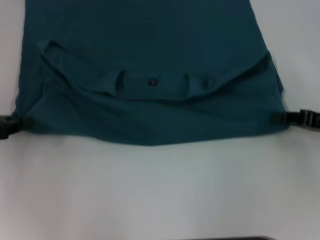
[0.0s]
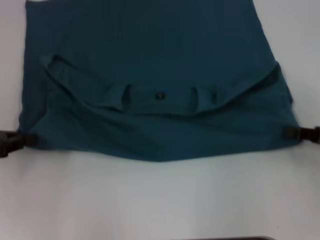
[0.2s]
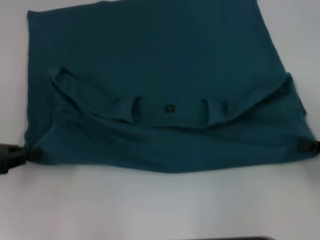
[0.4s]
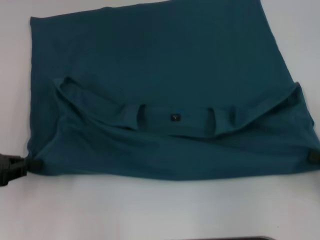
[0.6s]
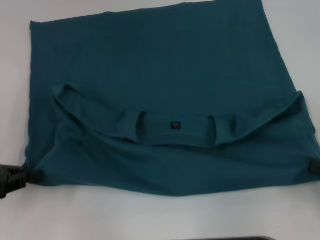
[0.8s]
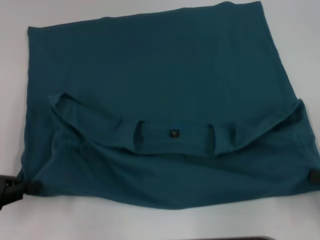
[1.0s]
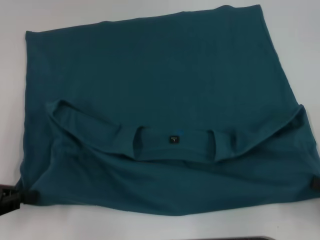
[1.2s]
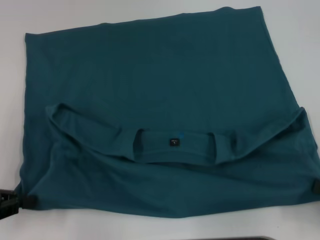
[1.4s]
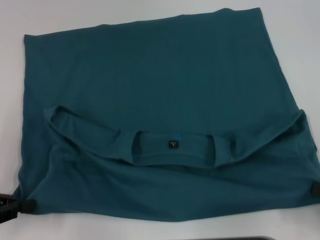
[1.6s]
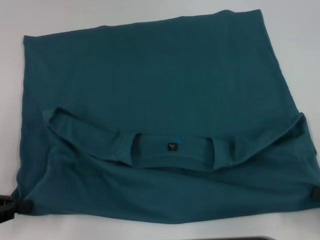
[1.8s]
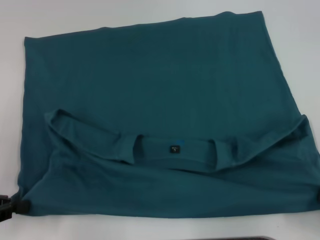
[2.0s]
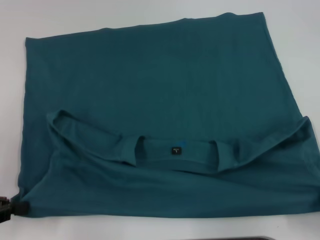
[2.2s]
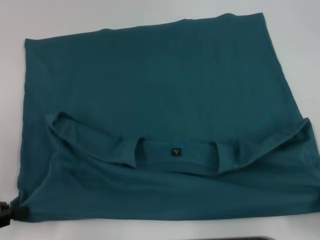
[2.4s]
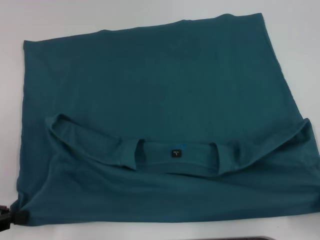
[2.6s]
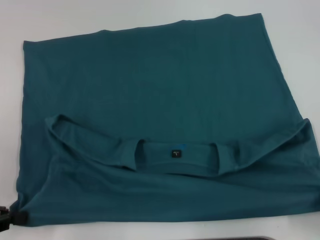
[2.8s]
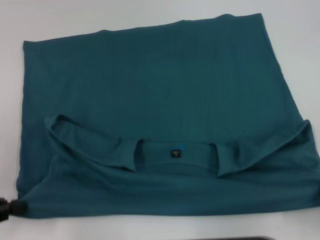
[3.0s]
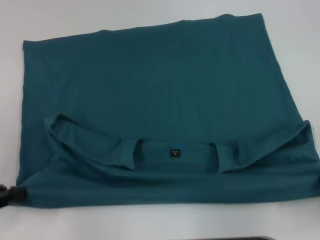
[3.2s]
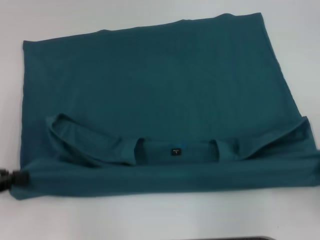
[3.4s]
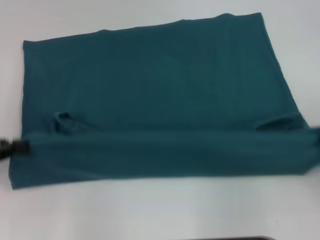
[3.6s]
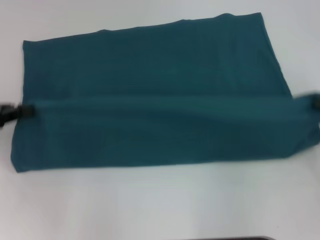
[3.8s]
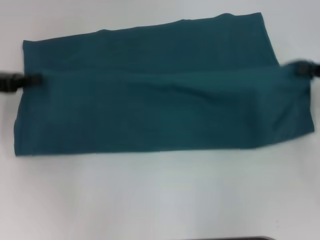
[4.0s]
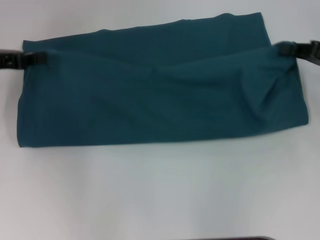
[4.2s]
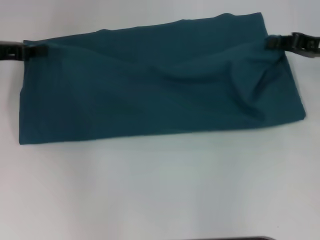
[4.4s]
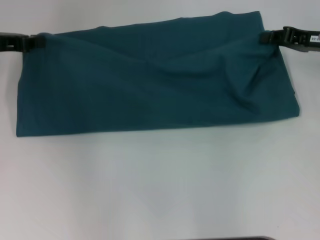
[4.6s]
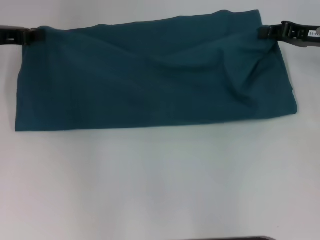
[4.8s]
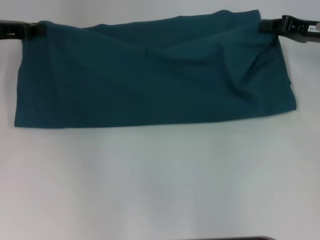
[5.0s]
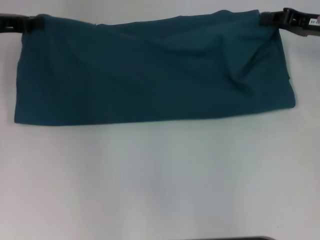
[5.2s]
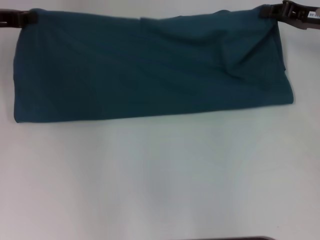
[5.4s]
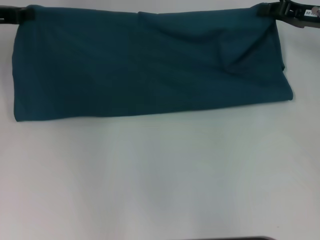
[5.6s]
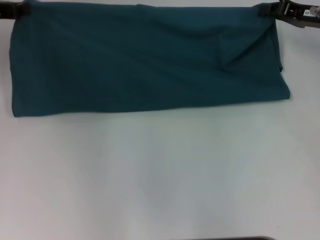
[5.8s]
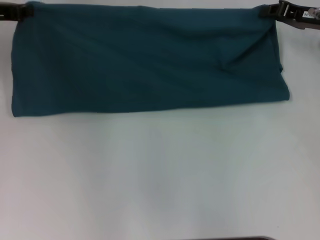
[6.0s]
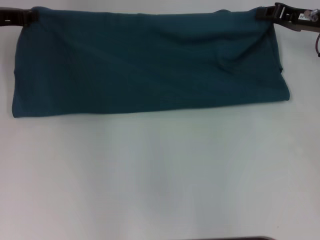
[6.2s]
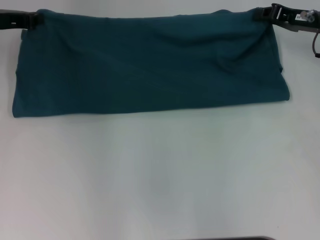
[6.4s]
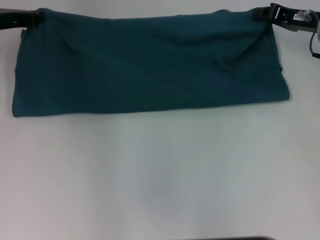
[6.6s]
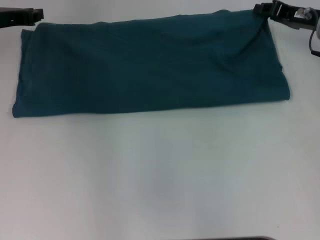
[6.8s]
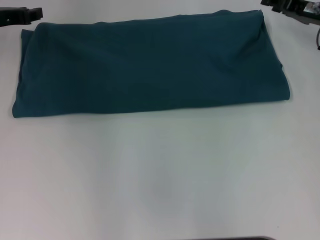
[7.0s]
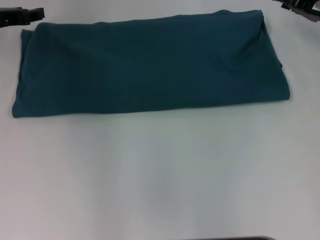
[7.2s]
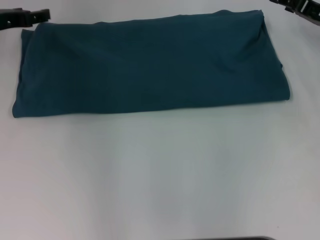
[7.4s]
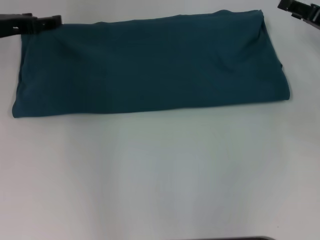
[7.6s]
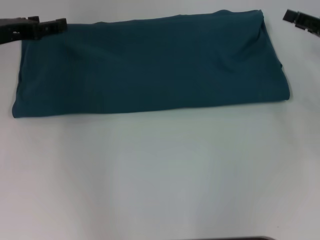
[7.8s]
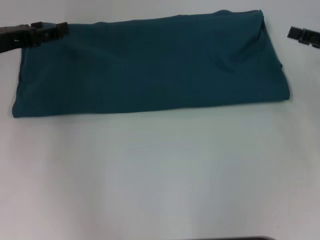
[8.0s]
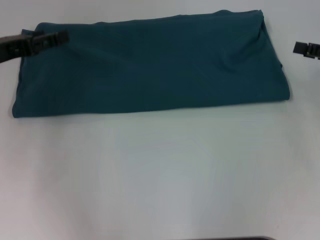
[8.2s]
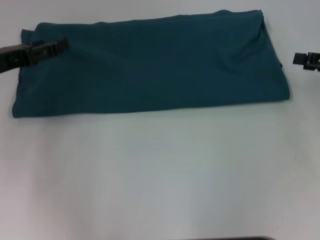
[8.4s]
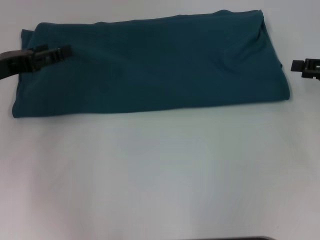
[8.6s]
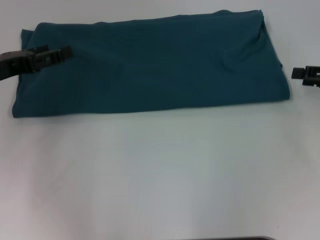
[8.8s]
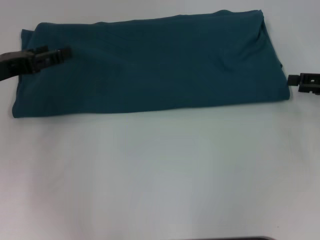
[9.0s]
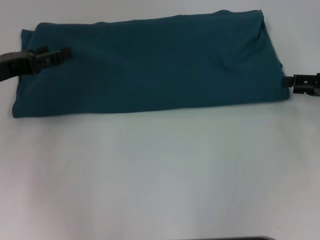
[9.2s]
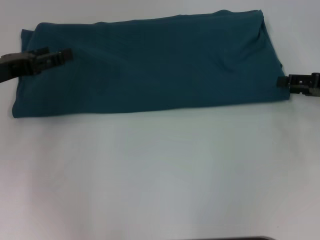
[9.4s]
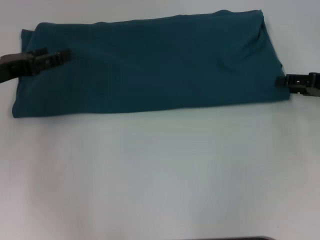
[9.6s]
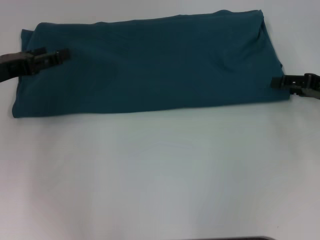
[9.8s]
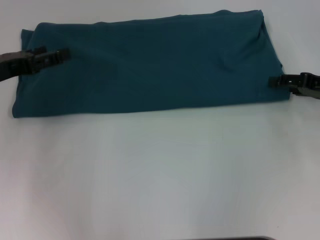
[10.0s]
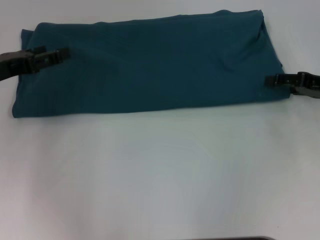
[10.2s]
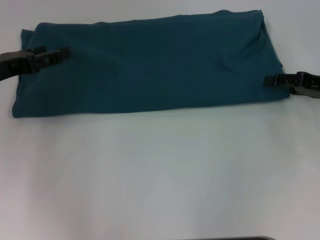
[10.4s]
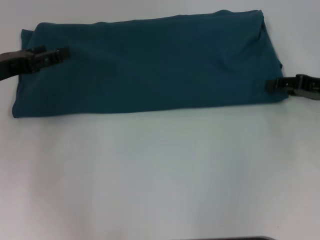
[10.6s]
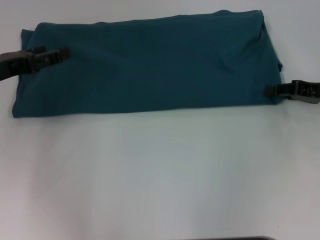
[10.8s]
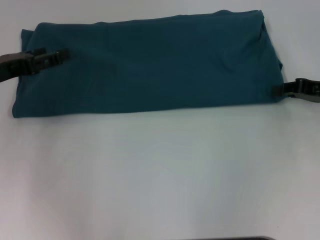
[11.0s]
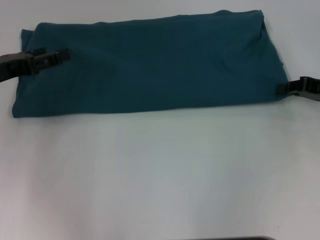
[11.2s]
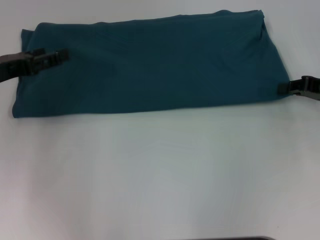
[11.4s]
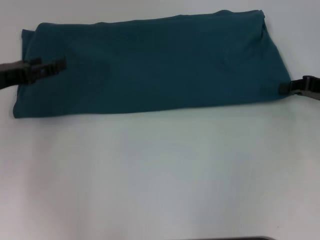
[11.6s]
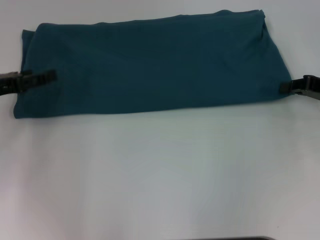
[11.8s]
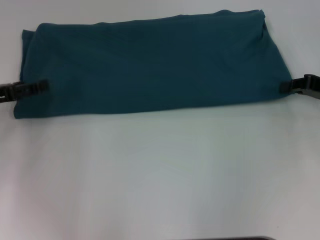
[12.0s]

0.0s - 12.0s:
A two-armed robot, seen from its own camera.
Step, 0.0s - 2.0s: Pull the clothes with your left hand.
Step, 0.0s - 2.0s: Pull the clothes with your right hand.
Step, 2.2s - 7.2s: Fold the clothes to the left.
Step, 2.2s - 7.2s: Fold the clothes to the right.
0.0s - 1.6s: The right gripper moves backward, some 15 cm; the left gripper travels backward by roughly 10 cm.
1.6s - 3.0s: There are only small adjustments of the grippers.
3.0s - 4.4s: The grippers both shift forward by about 20 cm.
4.4s - 6.0s: The left gripper ends up approximately 5 cm from where it was; the right gripper ends up about 5 cm from where it was.
6.0s - 7.6s: The right gripper moves about 5 cm, and opens up, while the left gripper opens its fingers.
7.6s - 9.0s: The grippers both shift backward by roughly 5 cm.
10.4s - 12.0s: The right gripper closes.

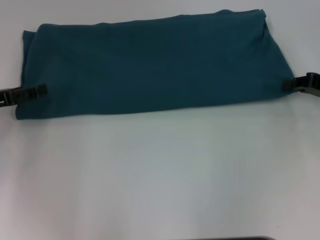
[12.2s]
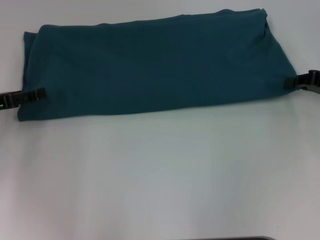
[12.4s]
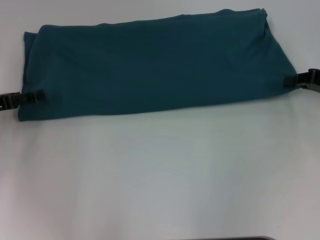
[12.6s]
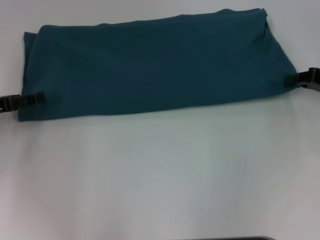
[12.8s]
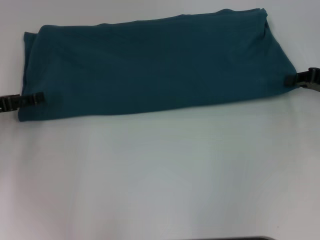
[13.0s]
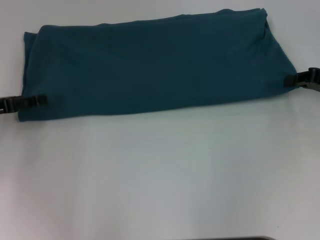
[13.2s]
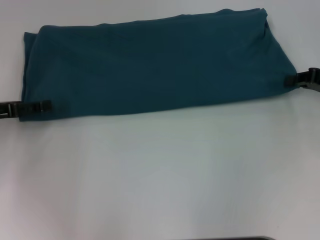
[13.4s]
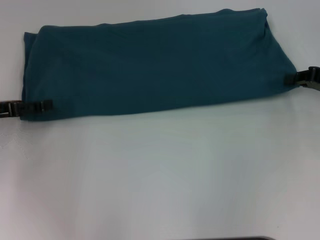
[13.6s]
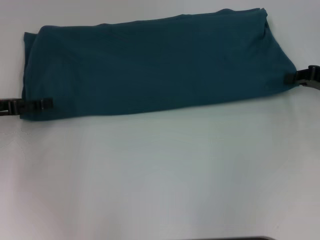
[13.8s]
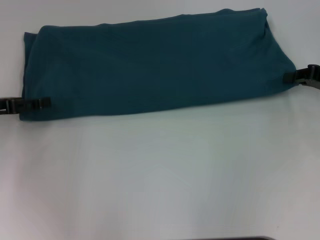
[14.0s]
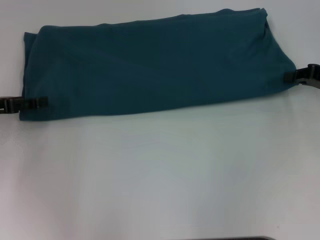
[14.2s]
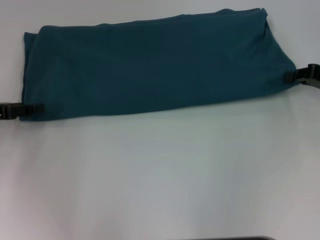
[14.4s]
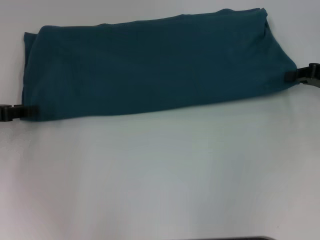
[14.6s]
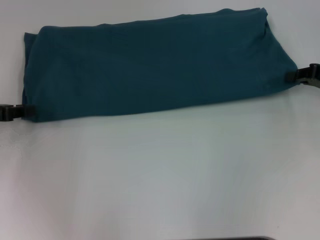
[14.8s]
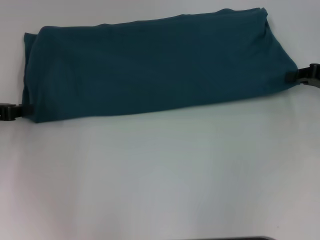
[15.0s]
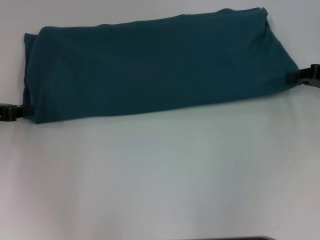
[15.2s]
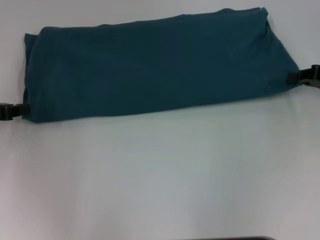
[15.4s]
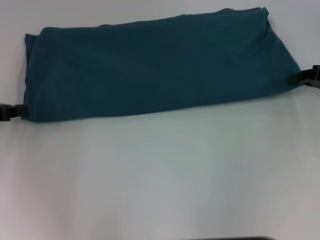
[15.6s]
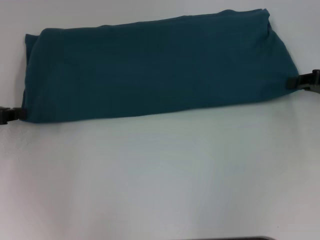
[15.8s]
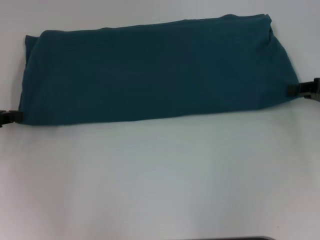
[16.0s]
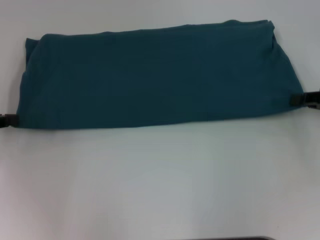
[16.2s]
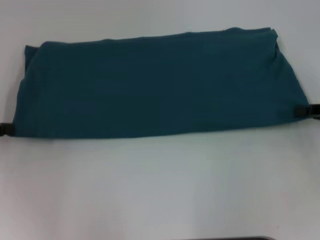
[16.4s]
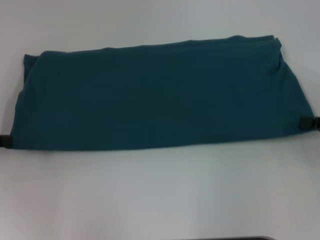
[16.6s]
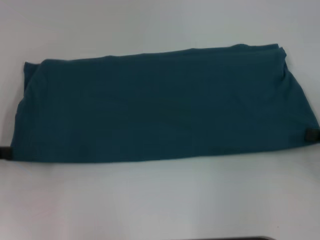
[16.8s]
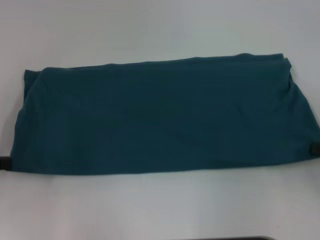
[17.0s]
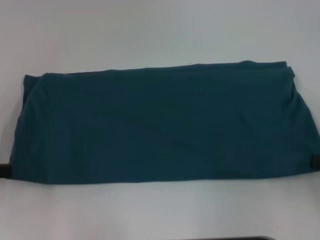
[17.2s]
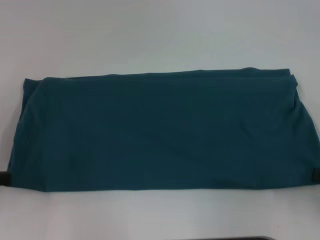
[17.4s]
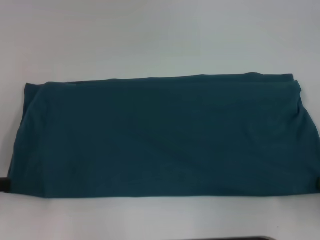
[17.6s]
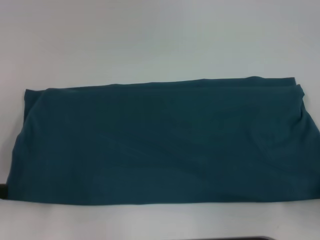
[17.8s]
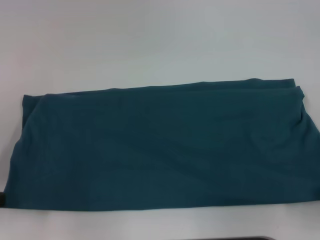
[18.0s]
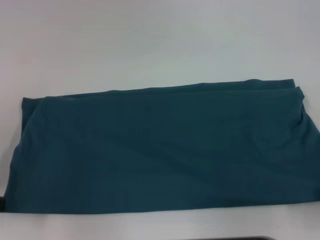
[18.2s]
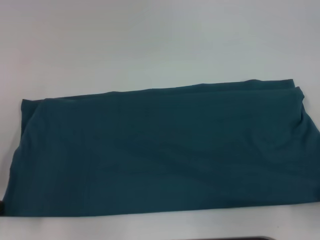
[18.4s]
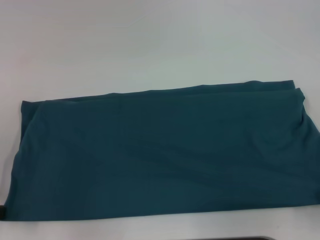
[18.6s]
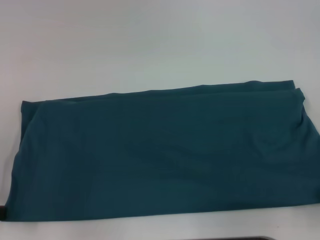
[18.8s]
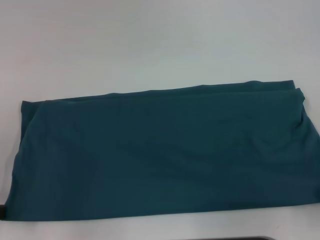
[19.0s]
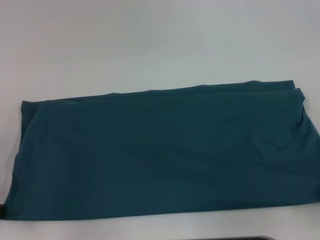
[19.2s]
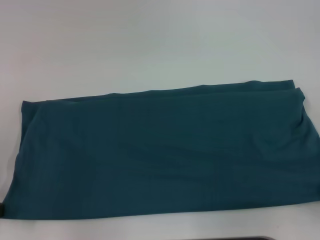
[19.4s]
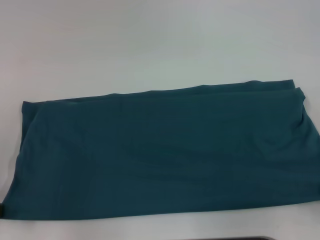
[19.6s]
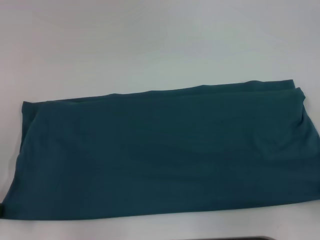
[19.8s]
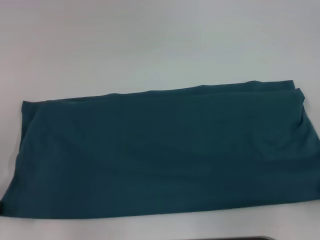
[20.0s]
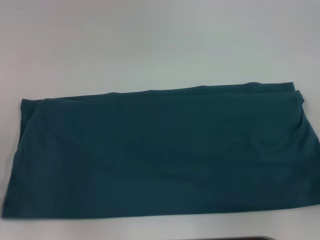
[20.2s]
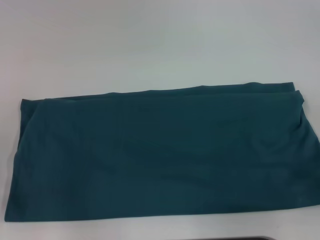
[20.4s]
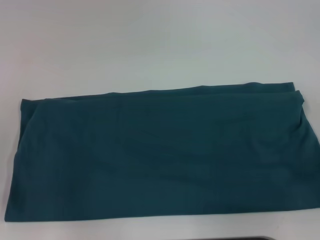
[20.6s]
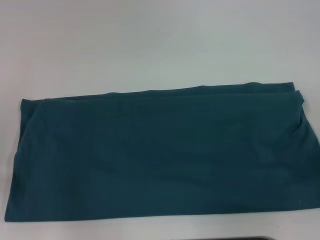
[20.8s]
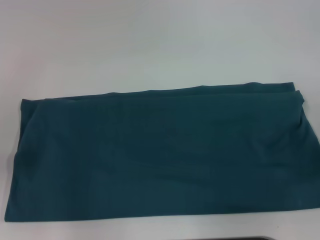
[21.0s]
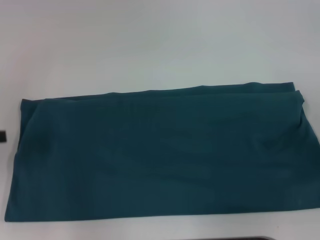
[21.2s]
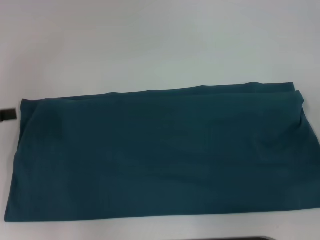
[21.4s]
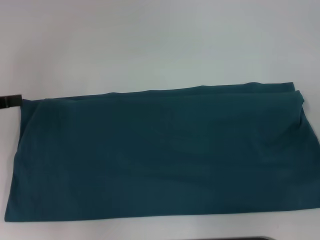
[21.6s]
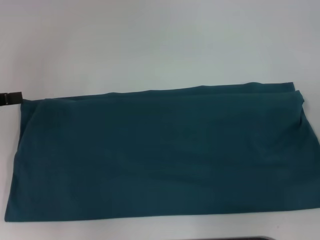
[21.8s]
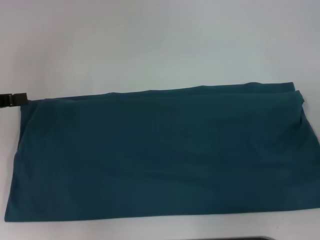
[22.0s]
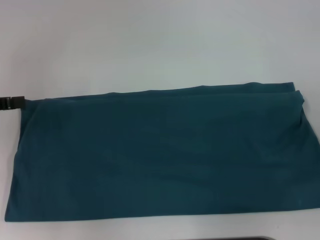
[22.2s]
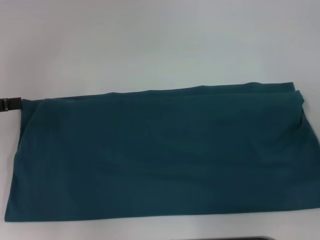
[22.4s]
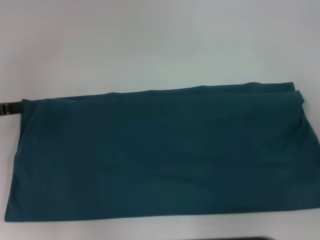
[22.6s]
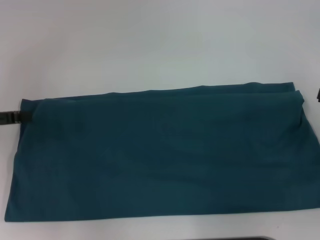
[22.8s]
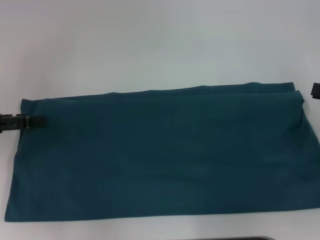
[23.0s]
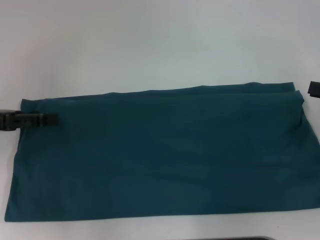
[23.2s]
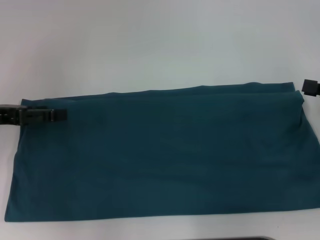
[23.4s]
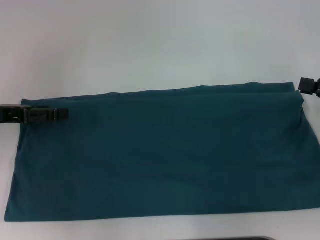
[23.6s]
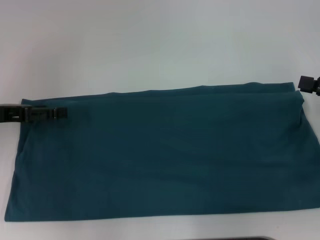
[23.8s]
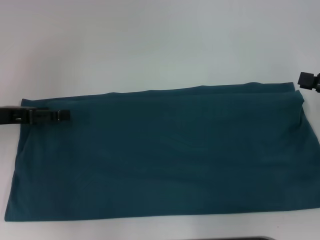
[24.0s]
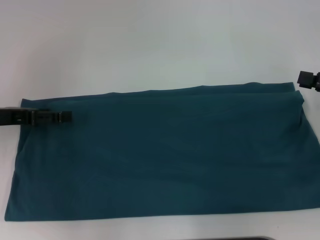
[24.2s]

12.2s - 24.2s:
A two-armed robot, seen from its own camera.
Step, 12.2s - 18.4s: Pull the clothes with your left hand.
Step, 12.2s - 18.4s: Pull the clothes with your right hand.
12.2s - 13.8s: There are only small adjustments of the grippers.
13.8s - 15.2s: The left gripper closes its fingers.
15.2s - 16.6s: The left gripper moves roughly 5 cm; the right gripper is displaced backward by approximately 10 cm.
16.6s - 18.2s: Both grippers travel together backward, some 10 cm.
18.2s - 19.8s: The grippers make only small movements.
19.8s - 21.2s: Both grippers travel together forward, about 5 cm. The right gripper opens its fingers.
22.6s - 24.2s: The left gripper goes about 5 cm to the right.
